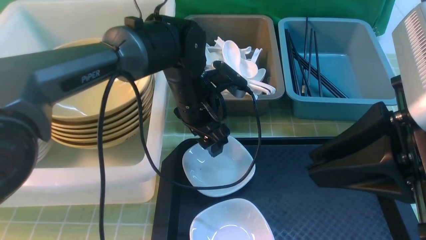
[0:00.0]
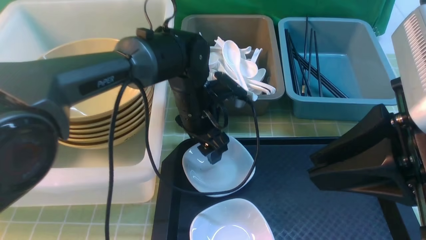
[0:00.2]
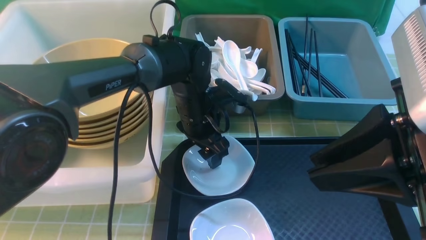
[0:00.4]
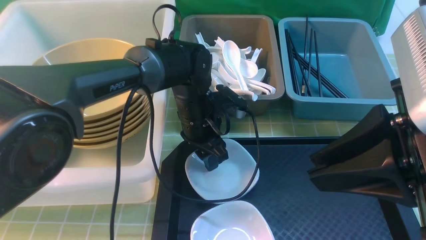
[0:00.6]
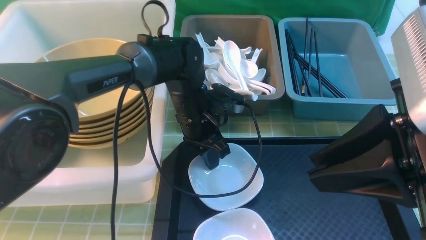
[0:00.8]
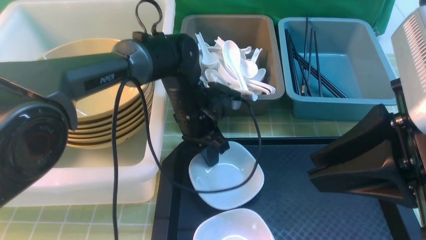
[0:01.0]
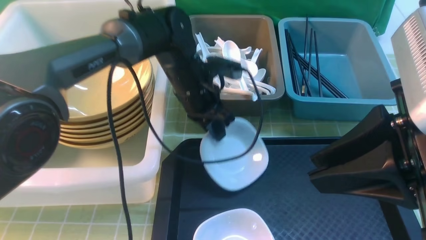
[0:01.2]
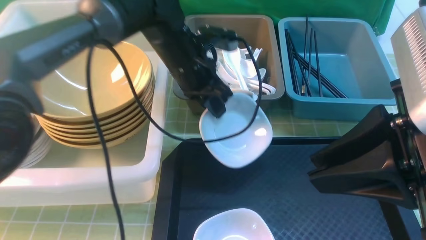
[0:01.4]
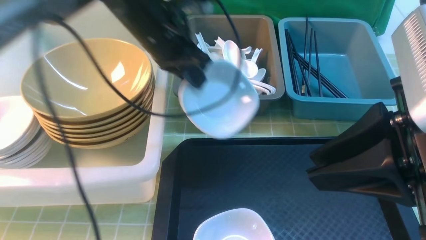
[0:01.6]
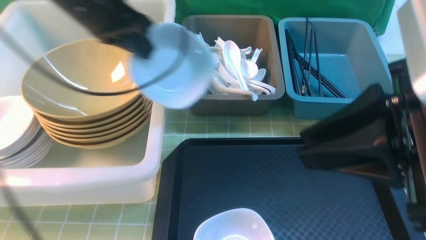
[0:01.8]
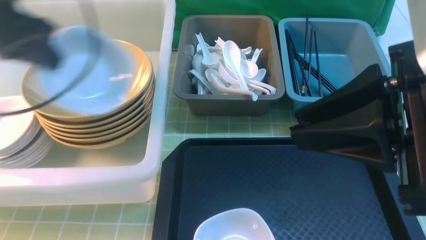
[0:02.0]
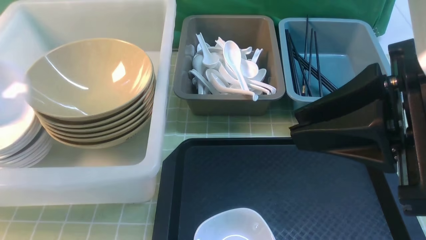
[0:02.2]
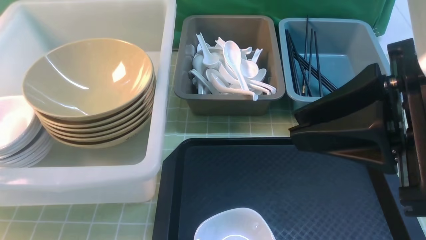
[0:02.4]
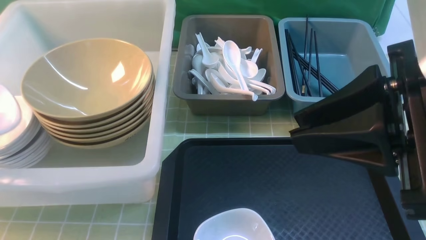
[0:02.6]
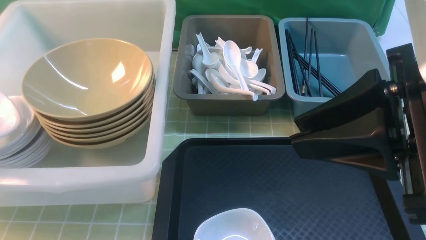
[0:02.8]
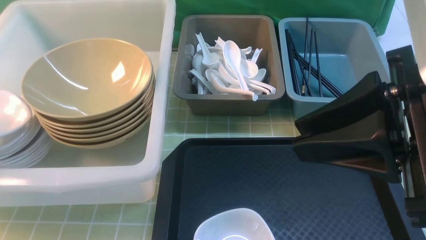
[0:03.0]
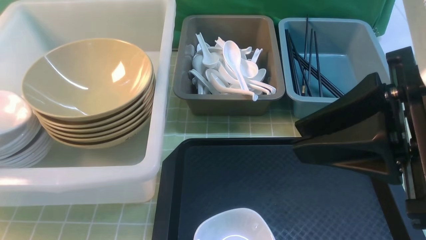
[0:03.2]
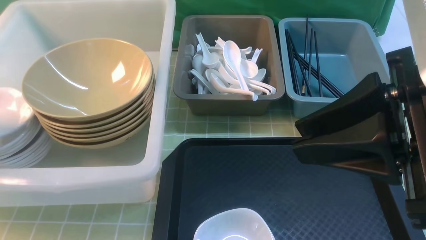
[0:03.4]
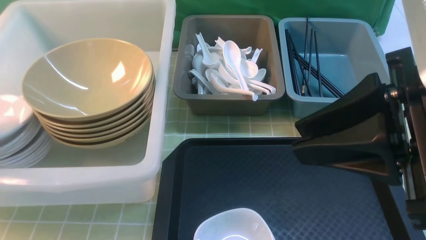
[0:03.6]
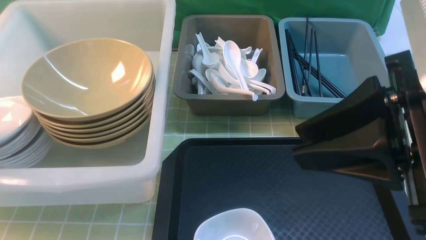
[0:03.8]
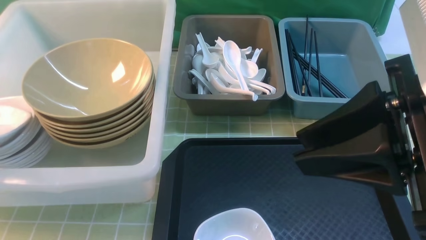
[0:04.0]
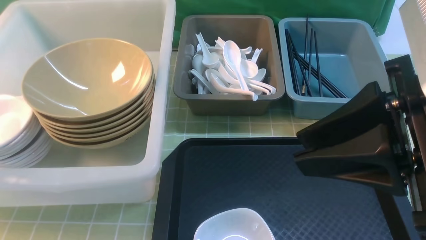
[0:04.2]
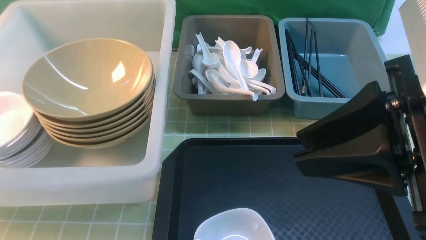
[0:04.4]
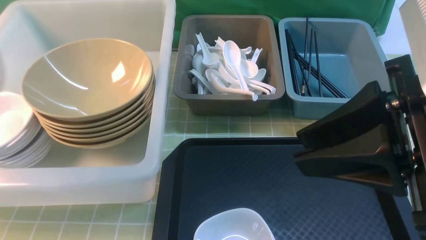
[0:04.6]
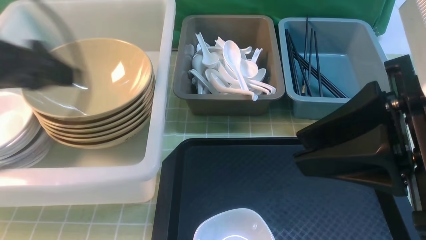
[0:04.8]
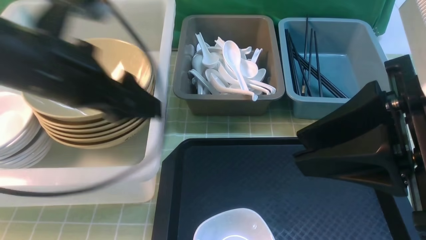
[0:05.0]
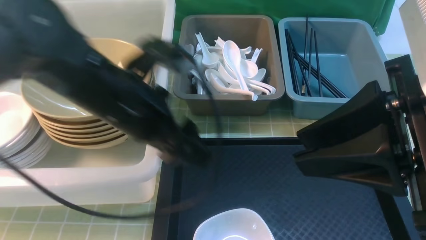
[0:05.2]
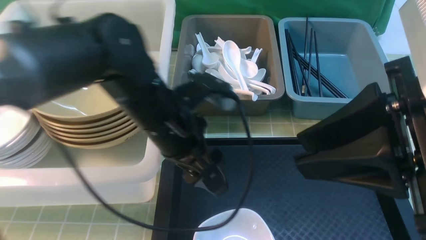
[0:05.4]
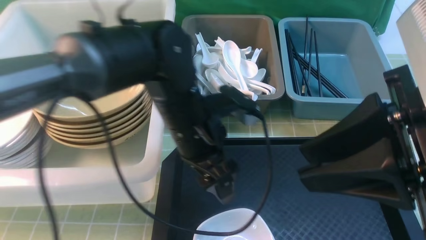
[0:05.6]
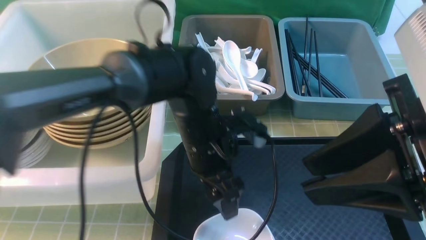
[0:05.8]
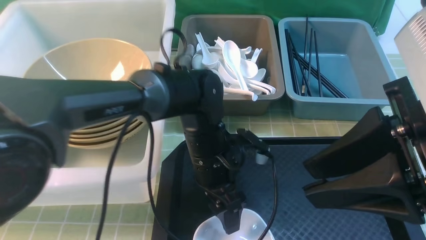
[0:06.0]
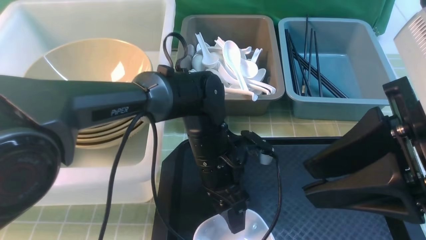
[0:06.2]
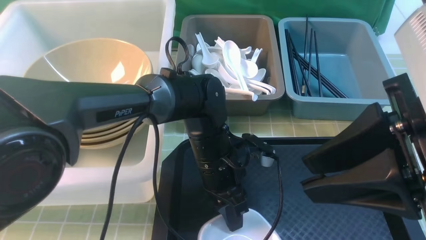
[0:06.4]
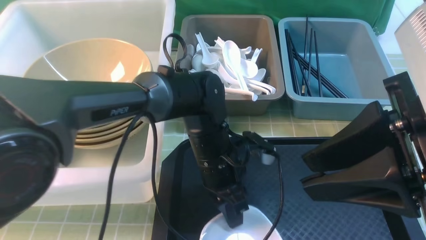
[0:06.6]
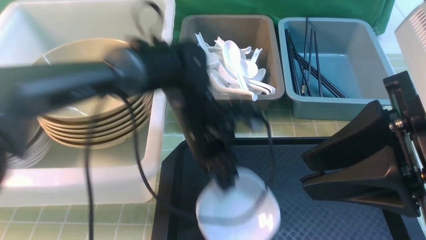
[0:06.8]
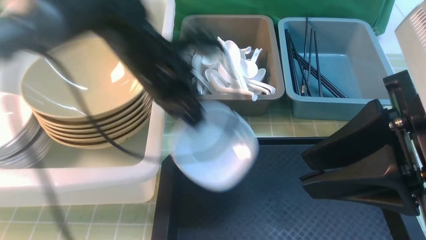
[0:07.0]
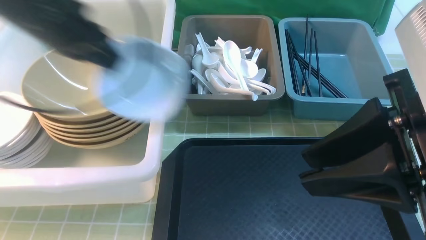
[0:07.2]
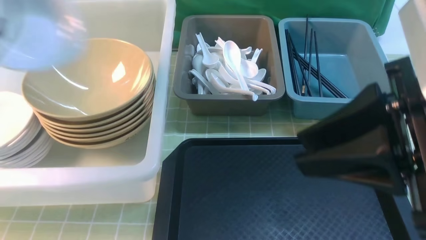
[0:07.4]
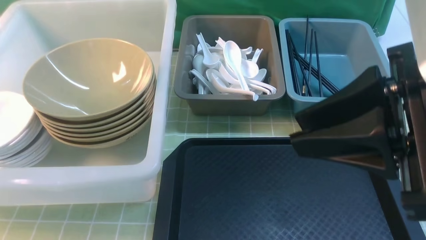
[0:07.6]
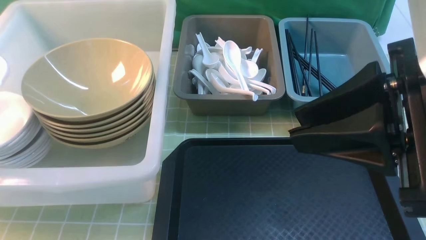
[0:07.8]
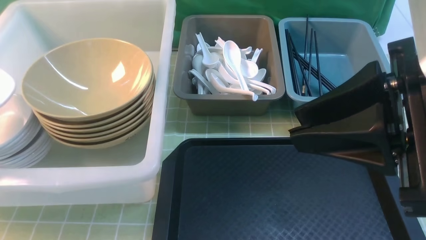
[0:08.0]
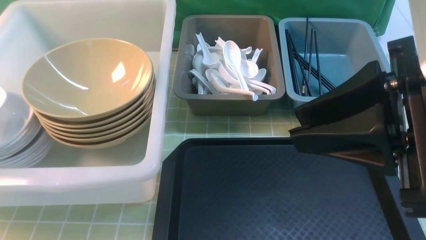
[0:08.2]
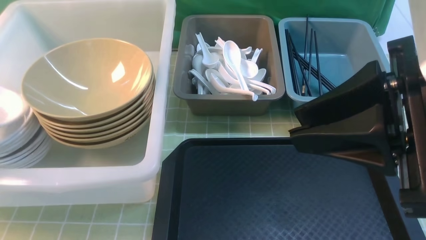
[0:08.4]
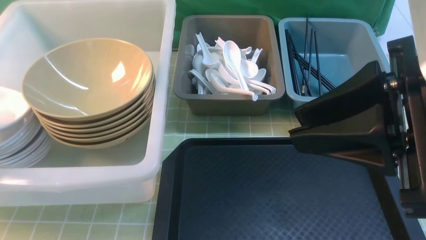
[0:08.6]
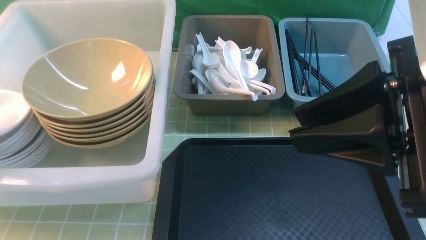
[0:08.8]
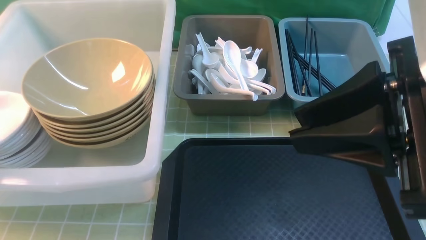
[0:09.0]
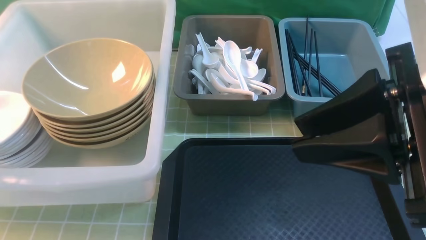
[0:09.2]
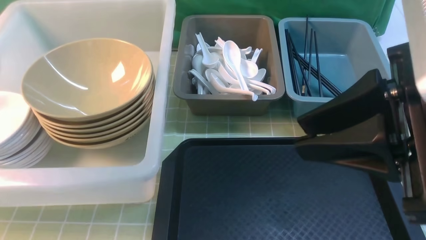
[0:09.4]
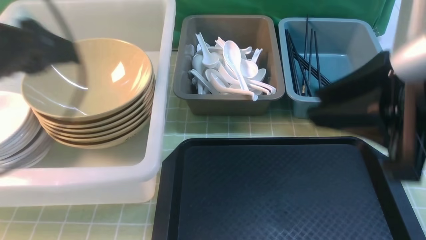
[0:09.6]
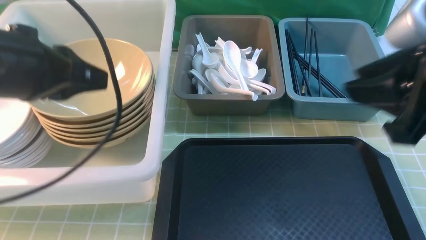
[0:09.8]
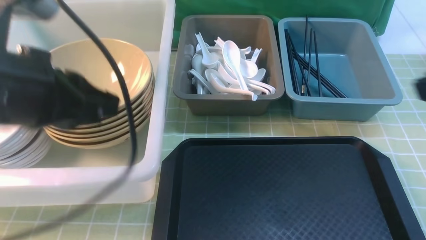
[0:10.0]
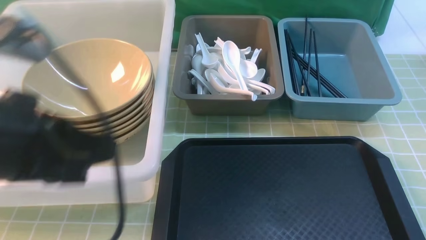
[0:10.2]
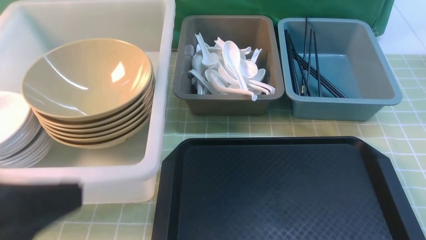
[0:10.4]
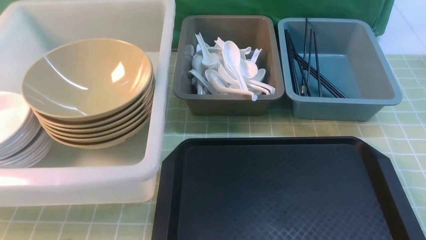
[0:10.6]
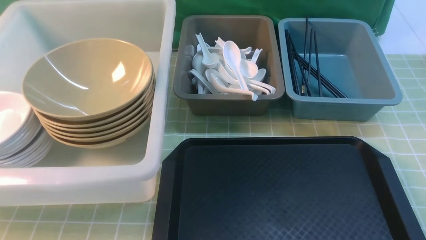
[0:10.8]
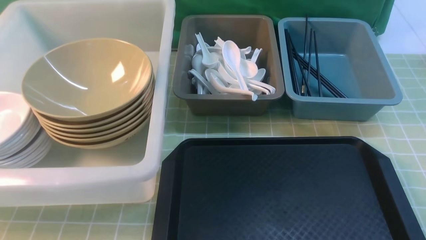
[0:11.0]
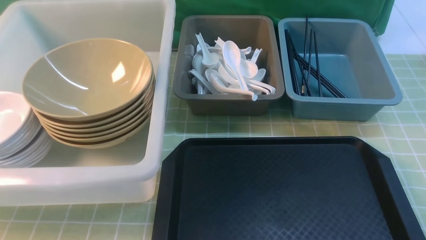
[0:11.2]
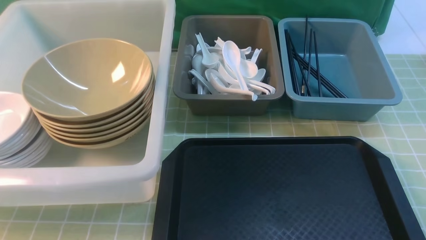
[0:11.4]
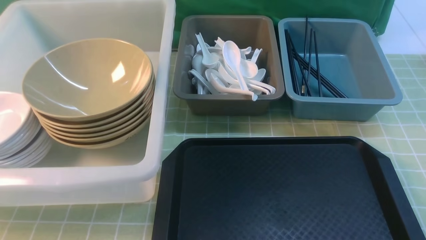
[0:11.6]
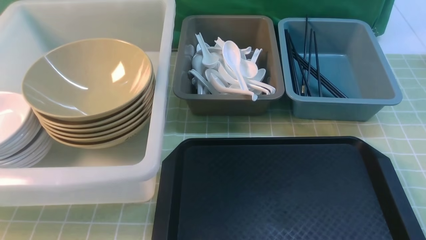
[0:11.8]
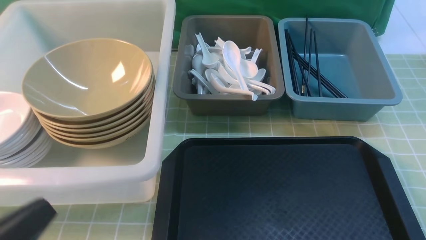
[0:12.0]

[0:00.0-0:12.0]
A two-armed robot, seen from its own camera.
Task of the whole recording: on green table put chopsticks spoon bowls plates into blue grey white boxes.
Step, 0:01.4 to 0:04.2: use the left arm to put the plate into the large storage box on the left.
Step, 0:04.6 to 0:06.8: use the left arm to grab the plate.
Step, 0:07.0 to 0:09.4: use the left arm to put the plate into the large storage box on the left.
0:00.0 to 0:01.6: The left gripper is displaced upward and to the left by roughly 15 cm, and closes.
0:01.6 to 0:03.0: The left gripper is displaced to the left by roughly 35 cm.
0:03.0 to 0:04.4: The left gripper is displaced upward and to the right by some 10 cm, and opens.
0:04.4 to 0:06.0: The left gripper moves to the right and downward, some 40 cm.
0:06.0 to 0:07.6: The left gripper shifts some 50 cm to the left and upward, and closes up.
0:07.6 to 0:09.0: The left gripper goes roughly 5 cm downward, and opens.
0:09.0 to 0:10.4: The right gripper shifts approximately 15 cm to the right, backward and downward, and closes; the left gripper goes roughly 30 cm to the right and backward, and closes its fingers.
0:10.4 to 0:12.0: The left gripper travels downward by about 10 cm. Meanwhile the right gripper travels downward by roughly 5 cm.

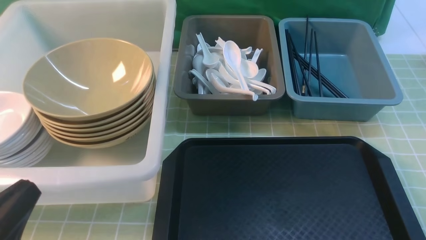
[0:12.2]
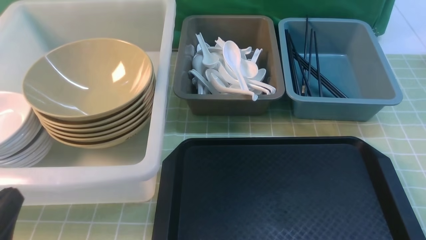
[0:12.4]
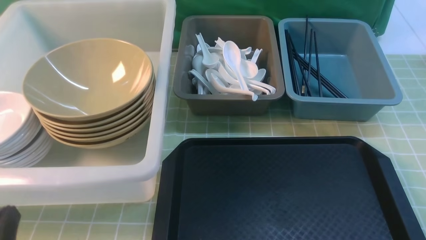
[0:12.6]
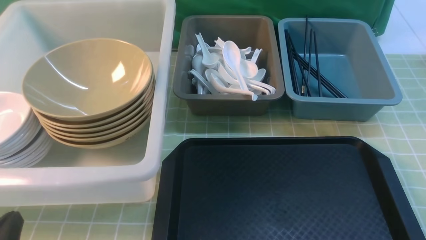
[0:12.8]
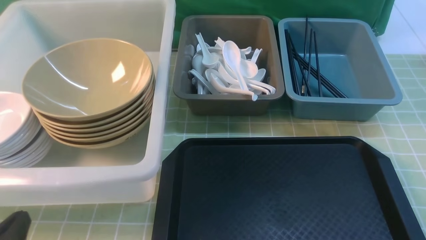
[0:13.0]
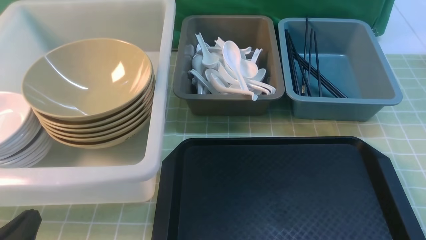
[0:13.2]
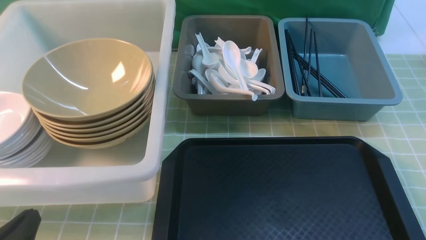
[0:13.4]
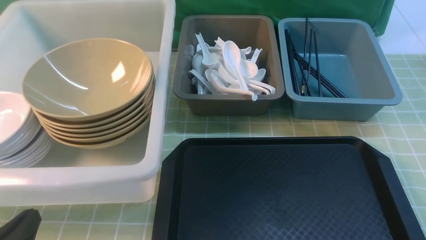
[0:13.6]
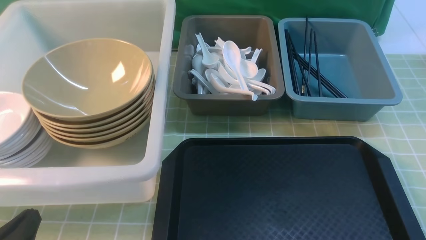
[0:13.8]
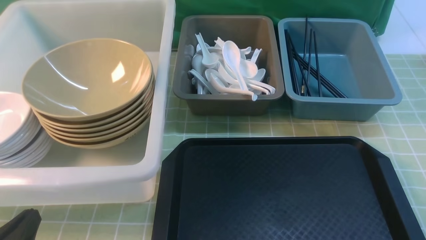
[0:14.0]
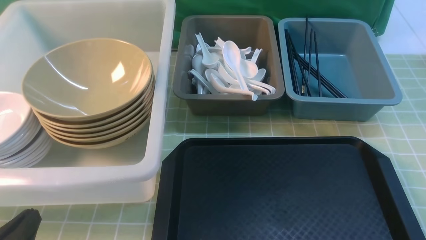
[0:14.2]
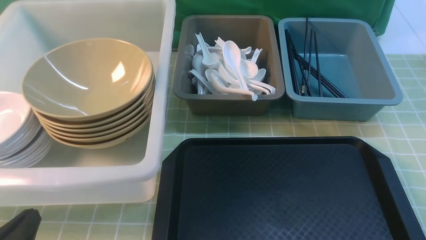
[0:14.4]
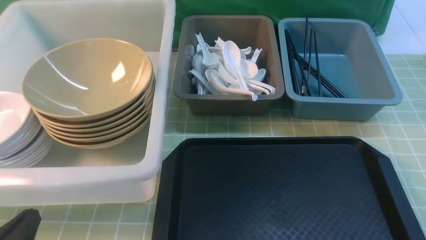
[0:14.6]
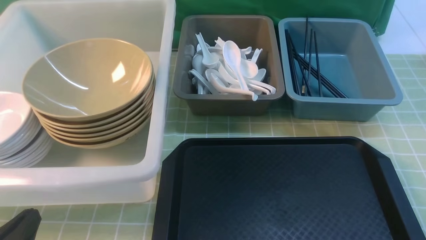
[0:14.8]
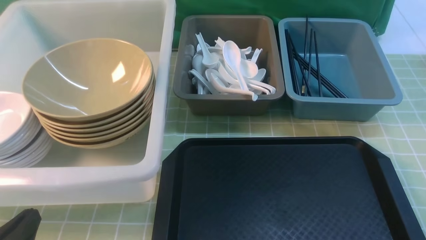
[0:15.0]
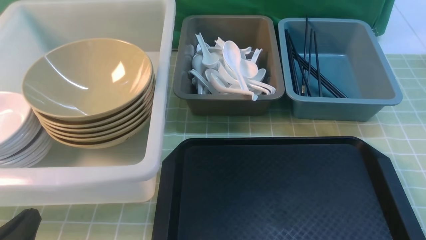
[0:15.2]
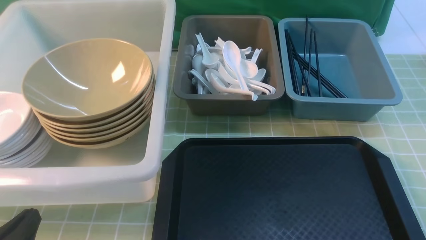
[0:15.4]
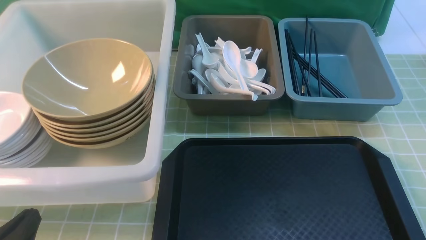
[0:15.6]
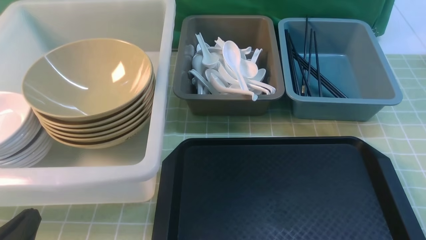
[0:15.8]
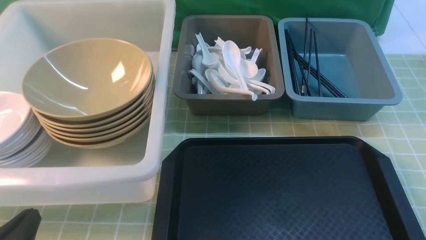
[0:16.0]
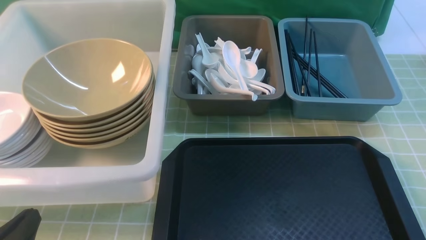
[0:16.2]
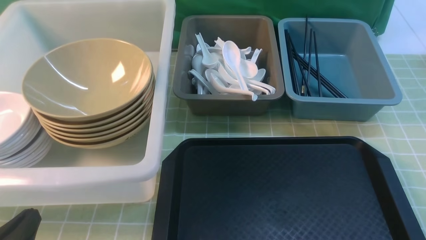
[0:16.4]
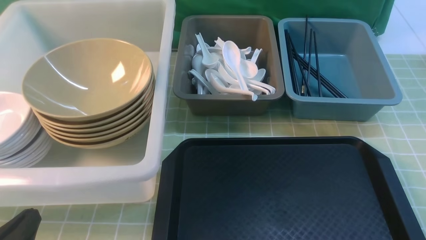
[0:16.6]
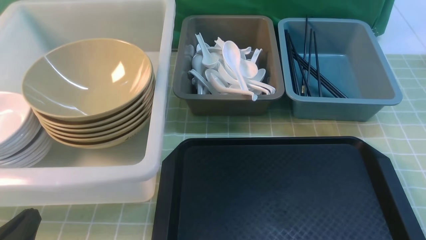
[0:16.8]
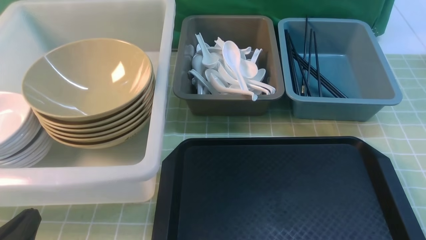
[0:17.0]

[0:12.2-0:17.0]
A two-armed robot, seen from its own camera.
Task of the whole recording: on green table put chopsticks spoon bowls plates into blue grey white boxes.
0:12.2 to 0:13.8: The left gripper moves downward, about 5 cm.
0:15.4 to 0:17.0: Both grippers stay put.
